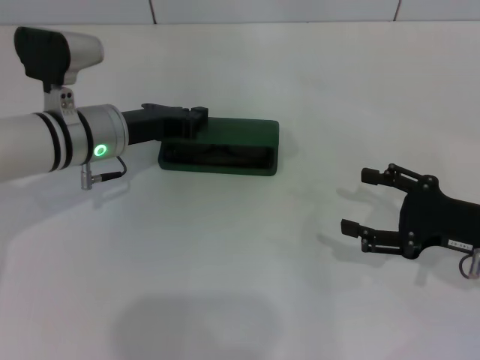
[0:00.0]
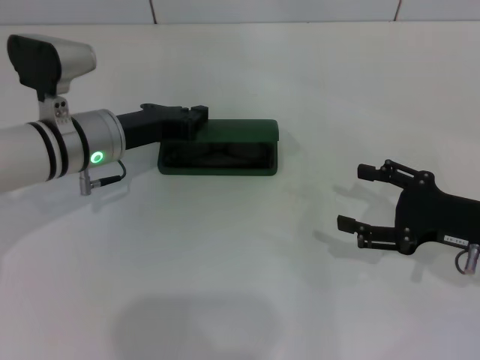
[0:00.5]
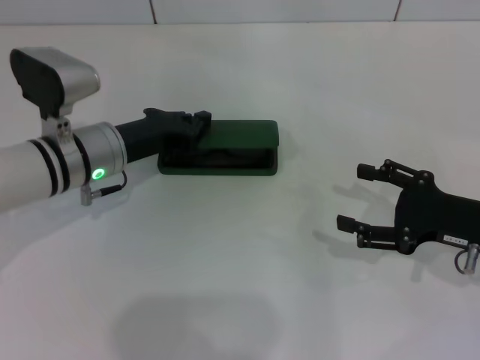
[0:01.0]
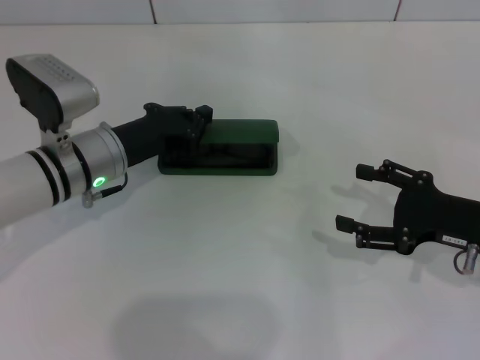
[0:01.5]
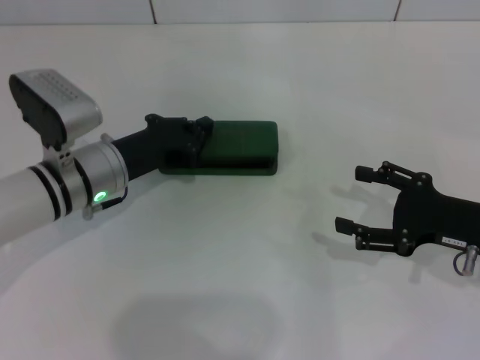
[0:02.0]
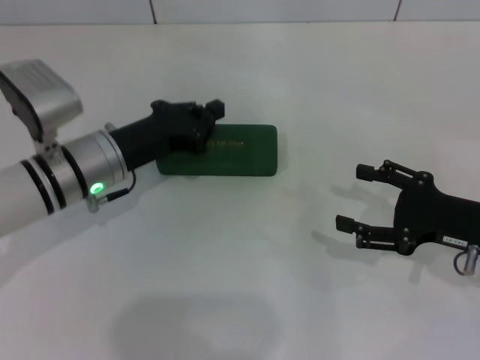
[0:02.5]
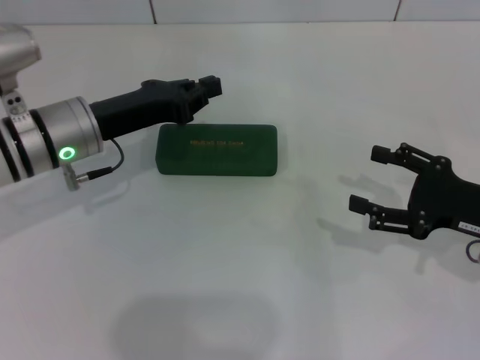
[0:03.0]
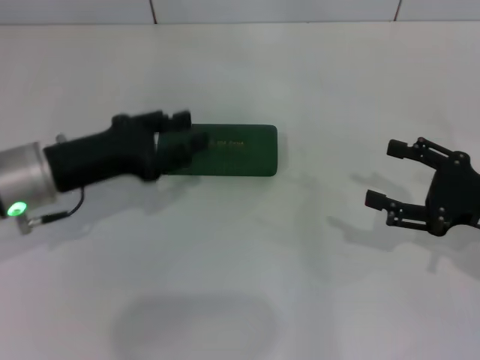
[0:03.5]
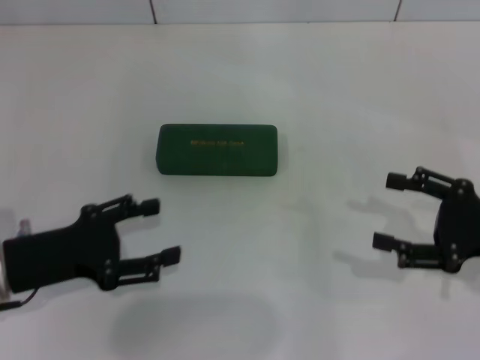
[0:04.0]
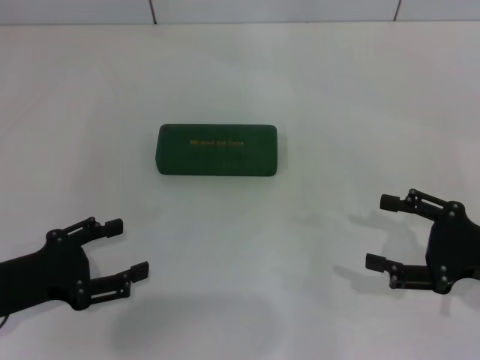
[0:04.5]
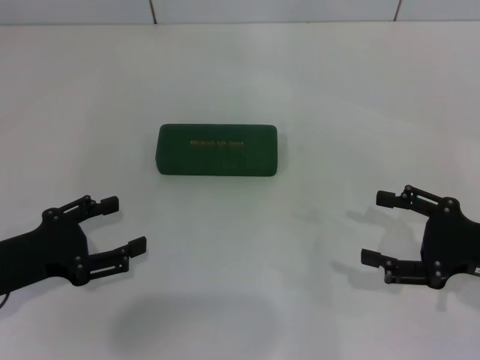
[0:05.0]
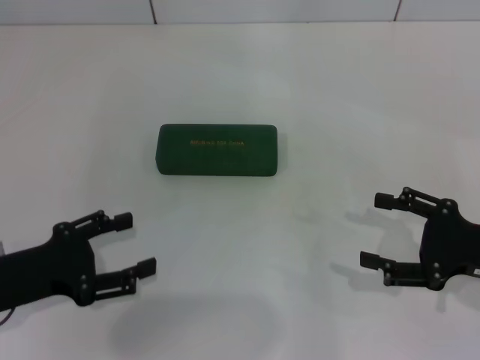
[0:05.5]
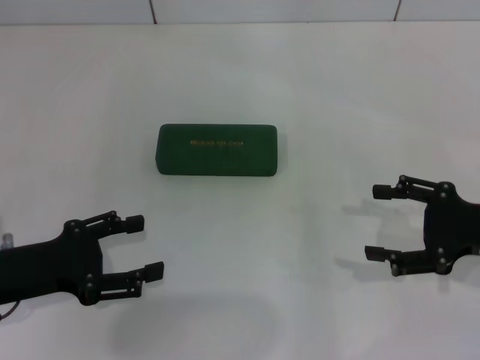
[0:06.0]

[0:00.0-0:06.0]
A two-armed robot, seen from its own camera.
Step, 0:00.0 to 0:02.0: Close the glasses case with your left hand.
0:00.0 to 0:02.0: The grippers stay close to where they were, moving slightly.
0:02.0 to 0:04.0: The left gripper shifts roughly 15 cm backward and to the left, and opens.
0:04.0 to 0:06.0: The grippers move only a little.

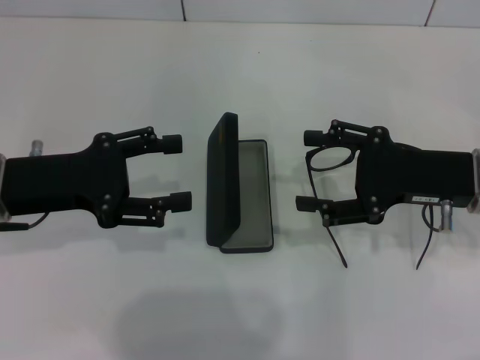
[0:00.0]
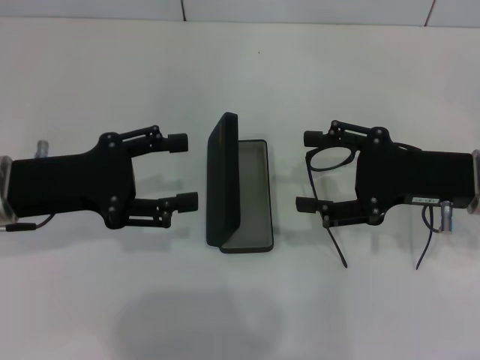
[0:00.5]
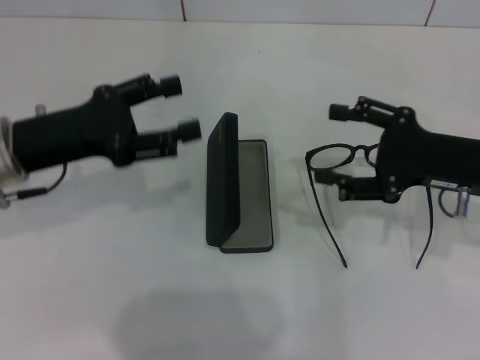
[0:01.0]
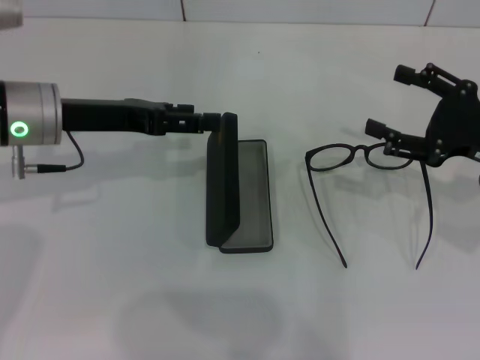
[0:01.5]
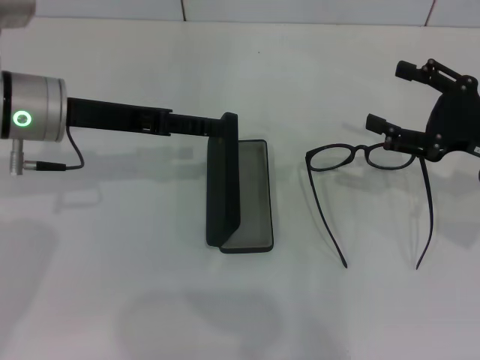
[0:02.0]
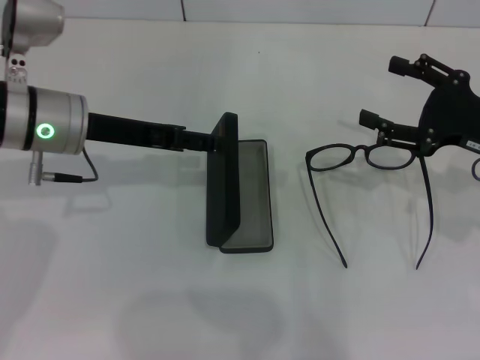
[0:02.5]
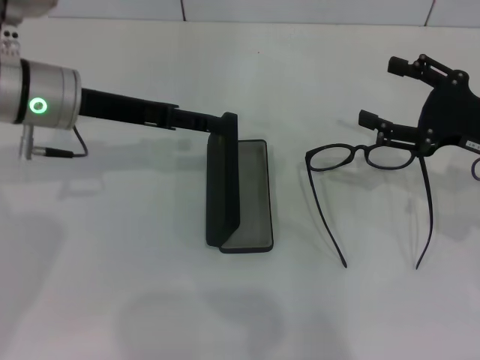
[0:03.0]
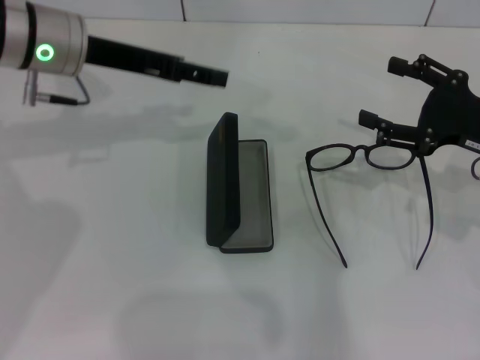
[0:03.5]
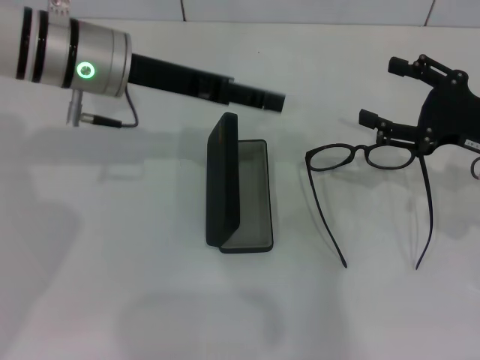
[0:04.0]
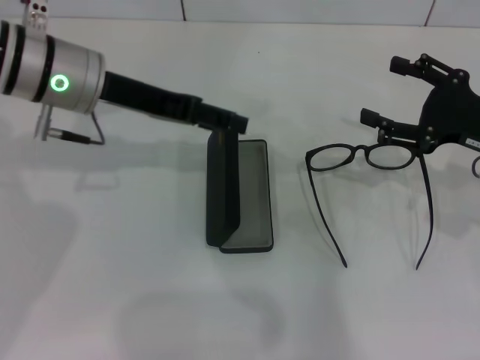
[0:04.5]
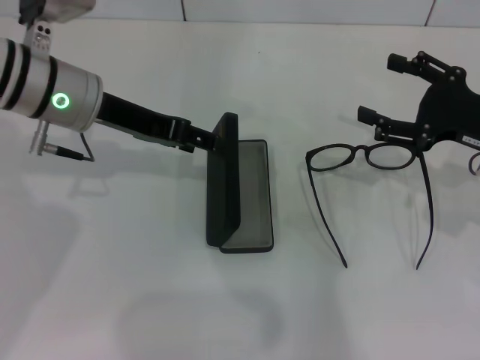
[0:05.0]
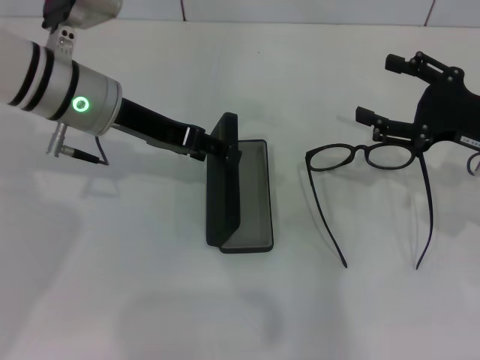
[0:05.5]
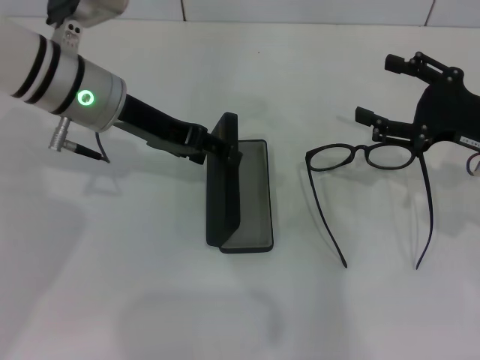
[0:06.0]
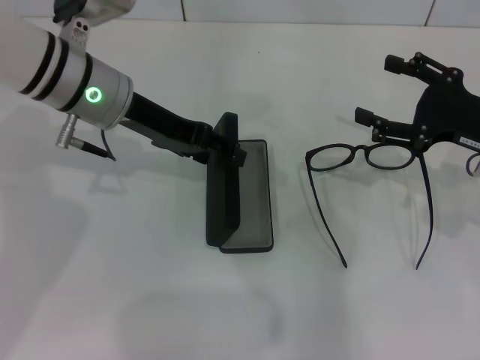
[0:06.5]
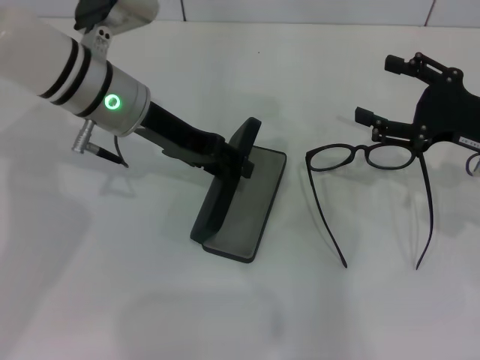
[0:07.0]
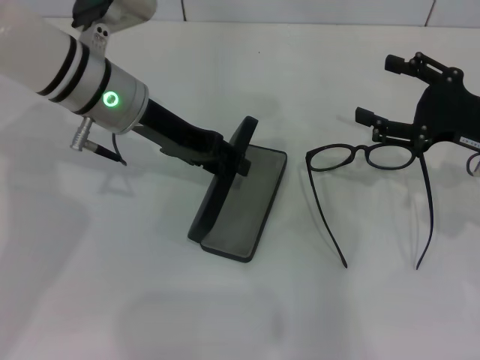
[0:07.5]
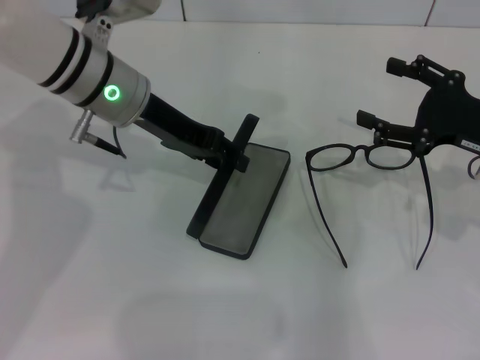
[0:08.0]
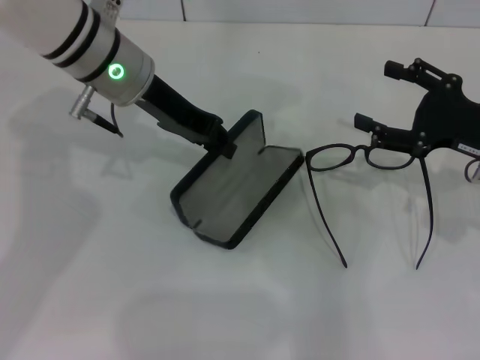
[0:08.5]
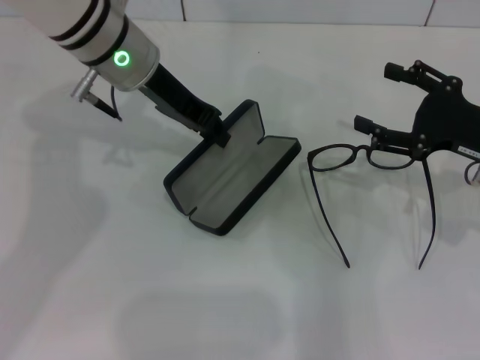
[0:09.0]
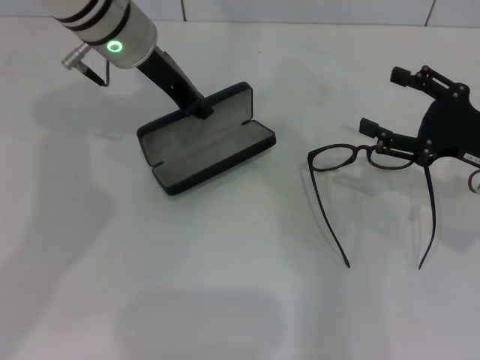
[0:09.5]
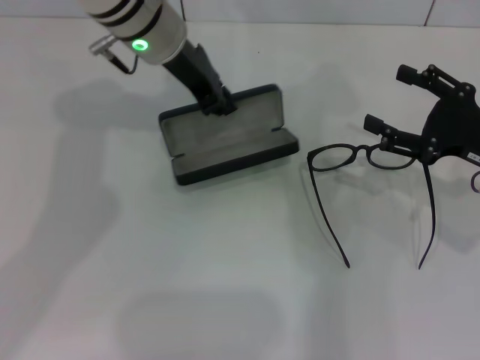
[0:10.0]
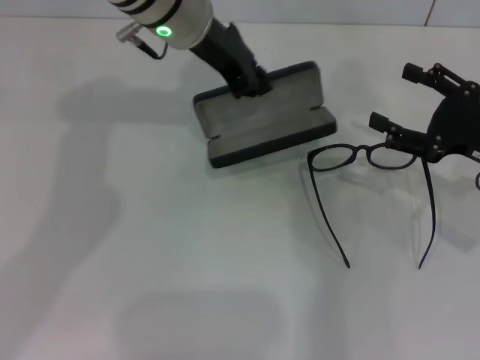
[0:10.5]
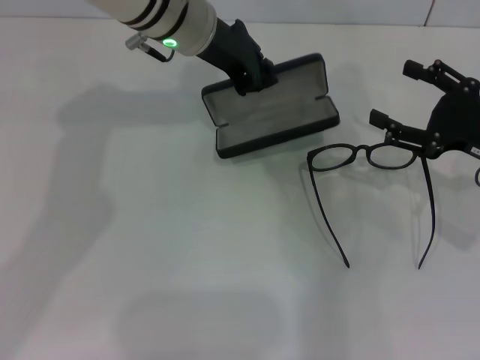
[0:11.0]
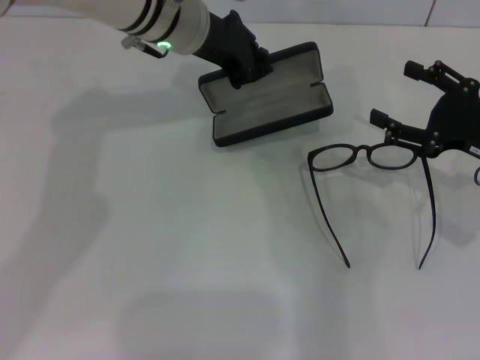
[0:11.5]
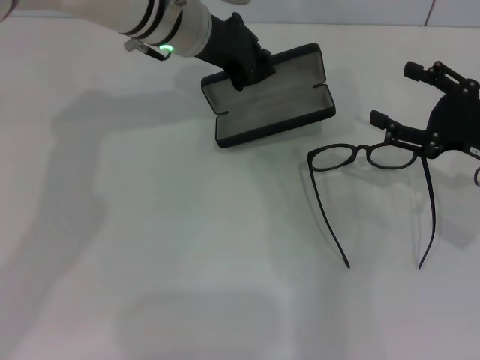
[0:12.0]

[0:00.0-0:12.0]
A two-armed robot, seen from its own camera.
Step, 0:00.0 to 0:06.5: Grab the glasses case with your left hand.
0:00.0 to 0:02.0: The left gripper is displaced forward by roughly 5 cm. The right gripper shifts roughly 5 cm to the right.
0:02.0 to 0:04.0: The left gripper shifts some 5 cm to the right.
0:06.0 to 0:08.0: The grippers stay close to where they were, moving slightly.
0:08.0 to 0:10.0: The left gripper shifts by roughly 5 cm, and closes.

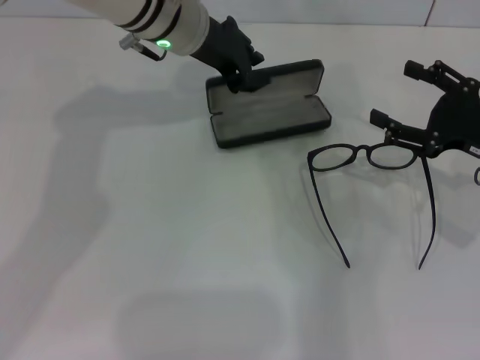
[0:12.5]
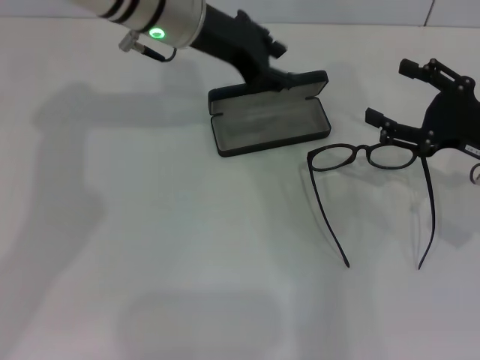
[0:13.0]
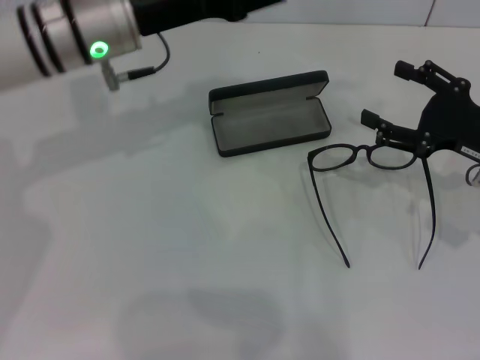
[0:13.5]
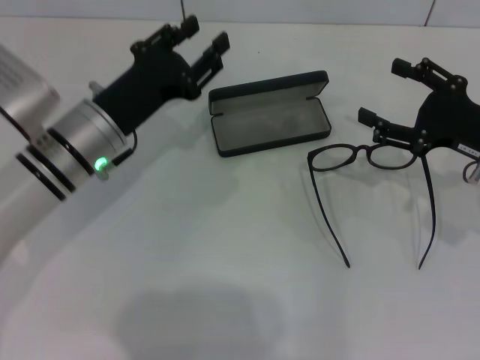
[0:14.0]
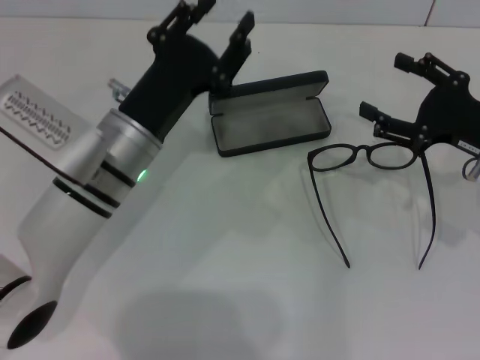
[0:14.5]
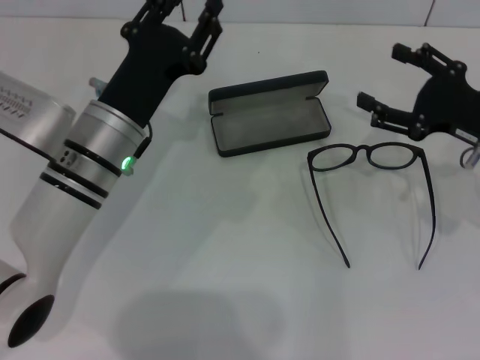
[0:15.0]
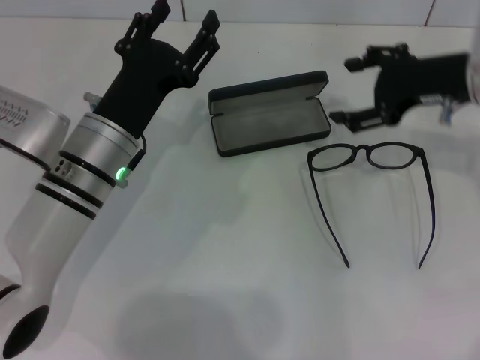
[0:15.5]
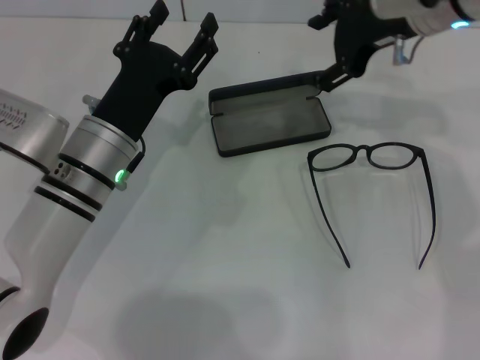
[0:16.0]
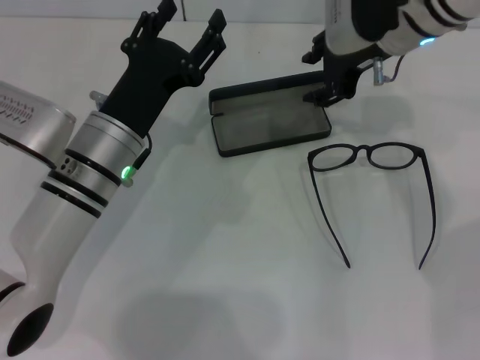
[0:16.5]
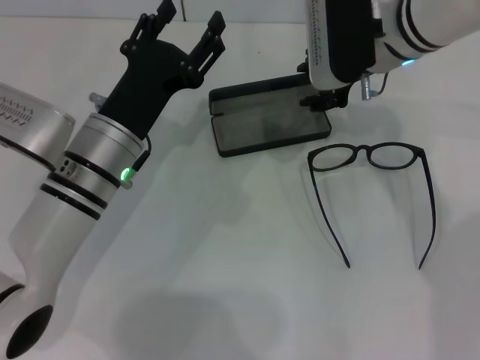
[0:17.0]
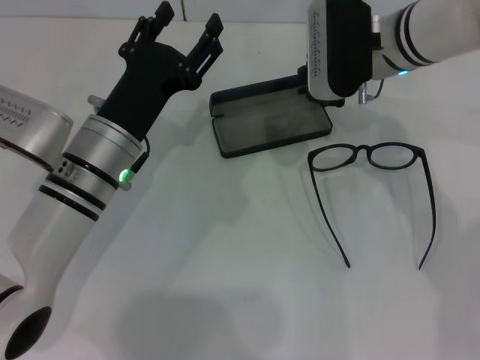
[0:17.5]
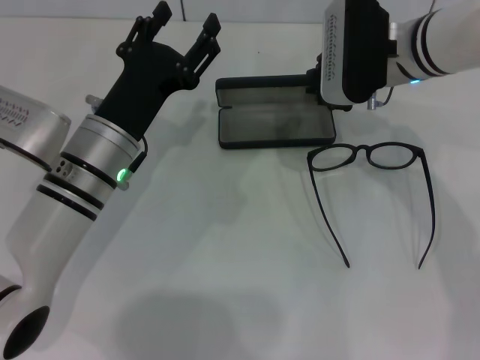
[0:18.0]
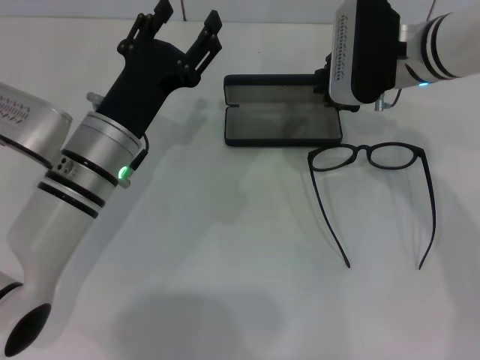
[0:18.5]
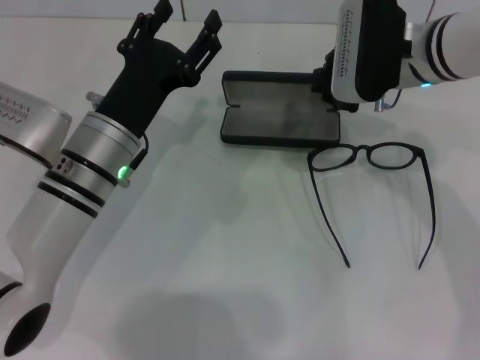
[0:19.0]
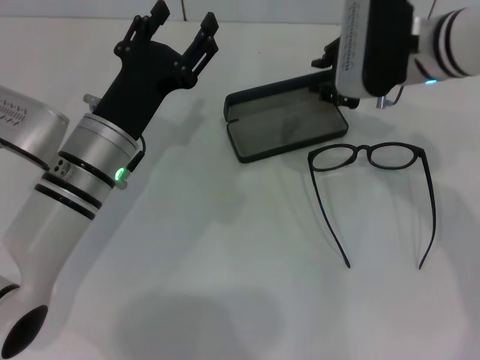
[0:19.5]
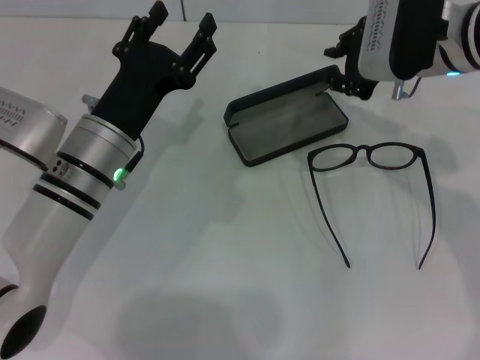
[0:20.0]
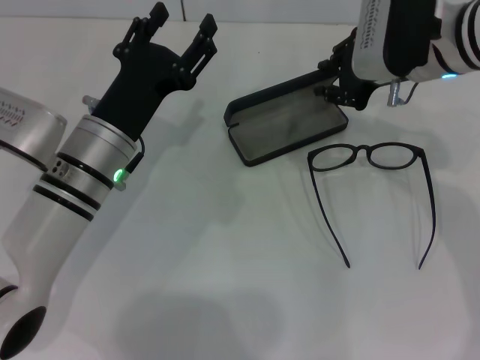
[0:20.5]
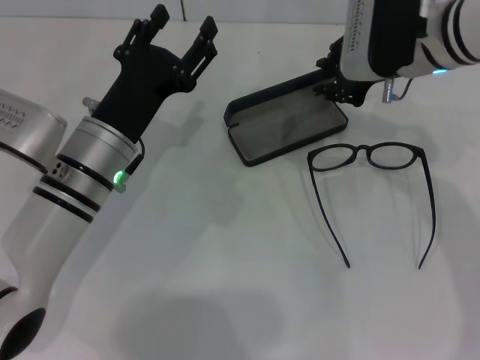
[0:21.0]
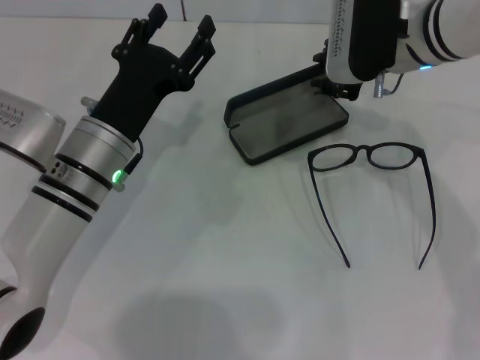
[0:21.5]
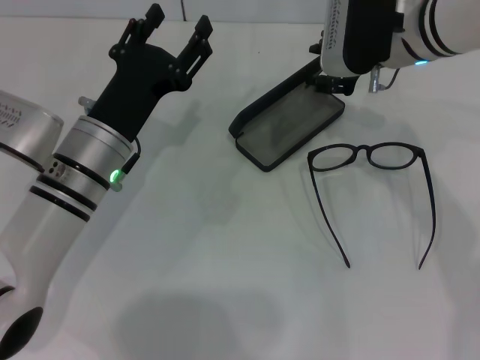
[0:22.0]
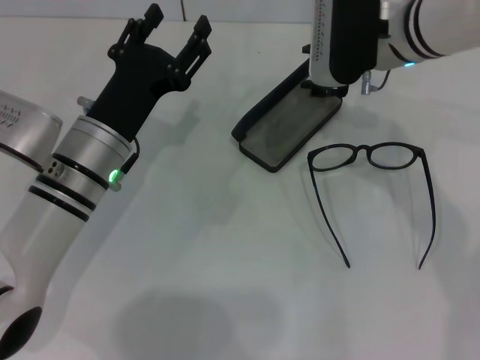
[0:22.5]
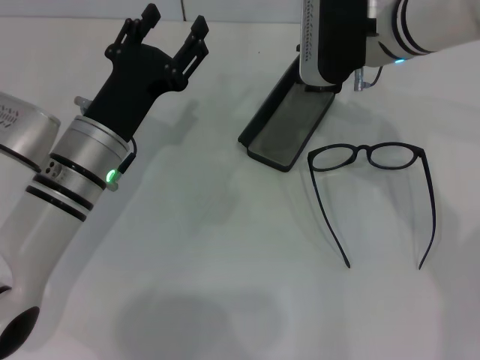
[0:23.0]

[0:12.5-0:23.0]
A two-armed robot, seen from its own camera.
0:12.5 to 0:14.5: The left gripper goes roughly 15 cm backward and downward, and opens up.
0:14.5 to 0:16.5: The right gripper heads to the left, forward and upward, covering roughly 20 cm.
0:16.5 to 0:19.0: The right gripper closes its fingers.
0:19.0 to 0:23.0: The grippers move only a little.
